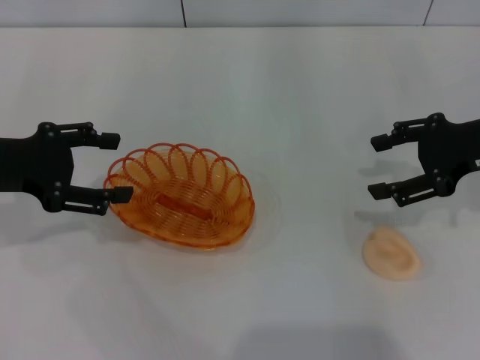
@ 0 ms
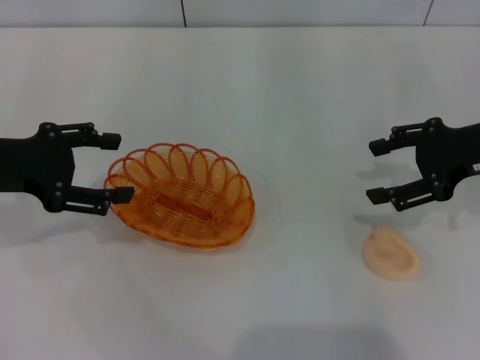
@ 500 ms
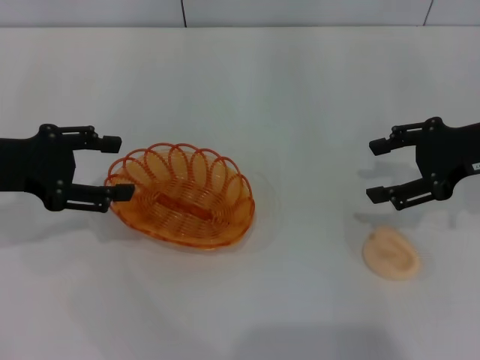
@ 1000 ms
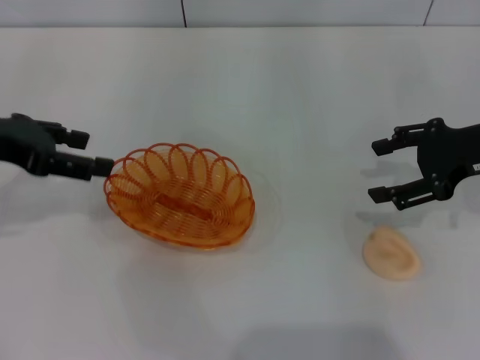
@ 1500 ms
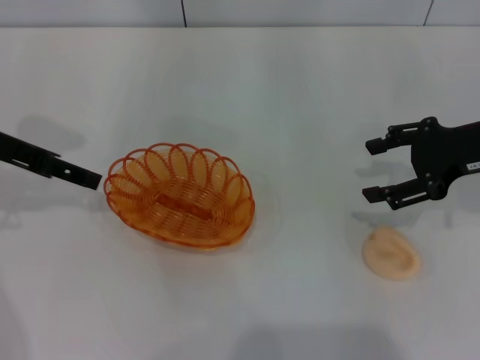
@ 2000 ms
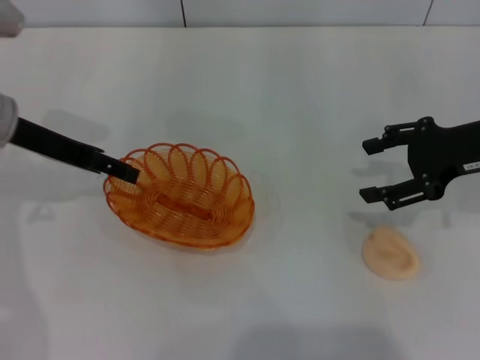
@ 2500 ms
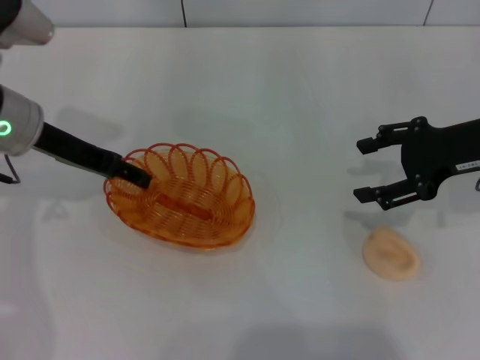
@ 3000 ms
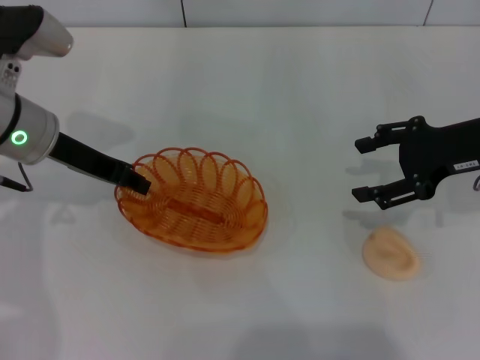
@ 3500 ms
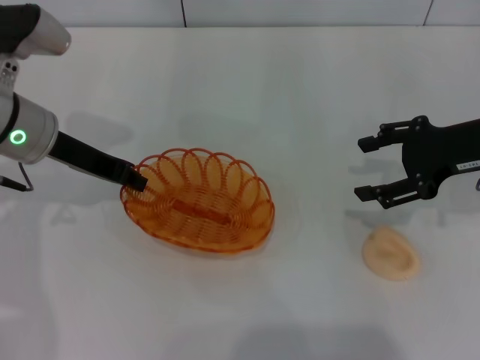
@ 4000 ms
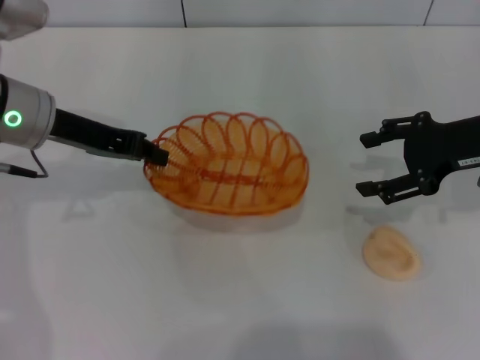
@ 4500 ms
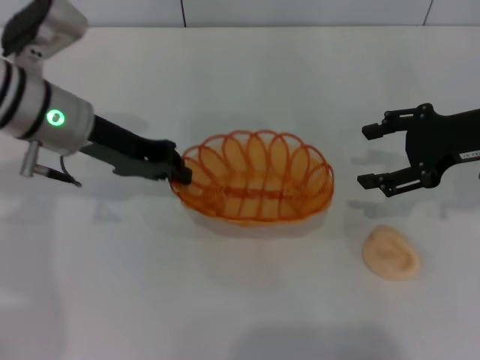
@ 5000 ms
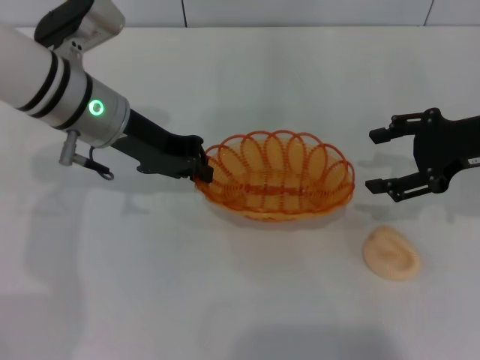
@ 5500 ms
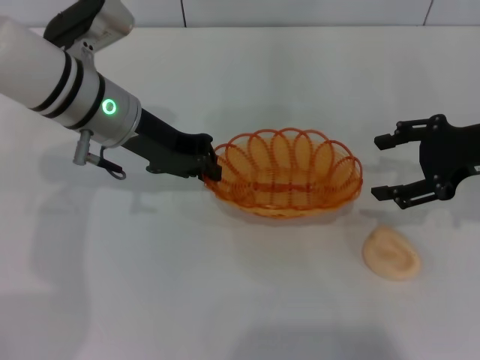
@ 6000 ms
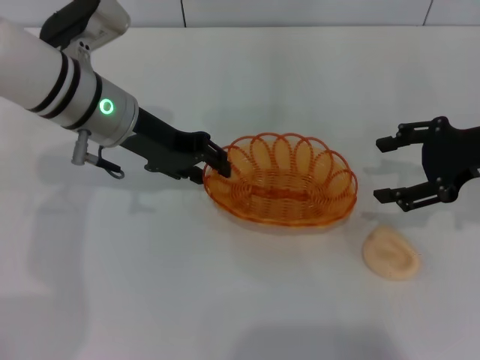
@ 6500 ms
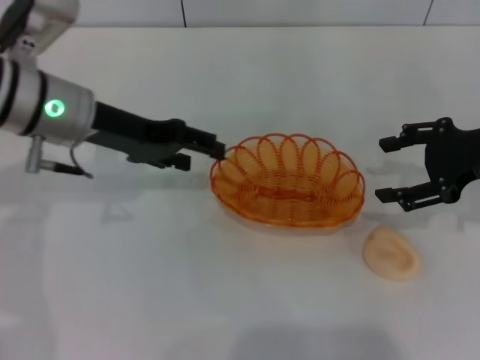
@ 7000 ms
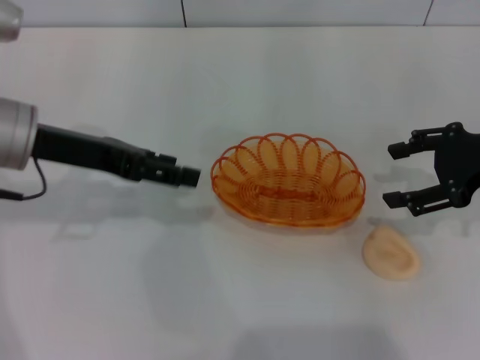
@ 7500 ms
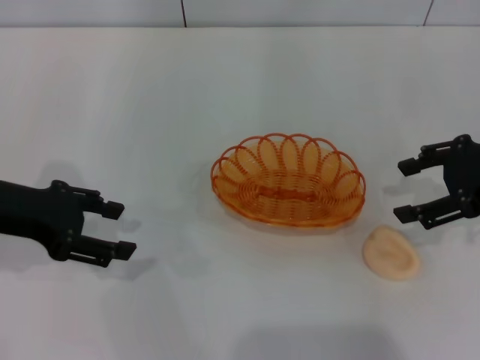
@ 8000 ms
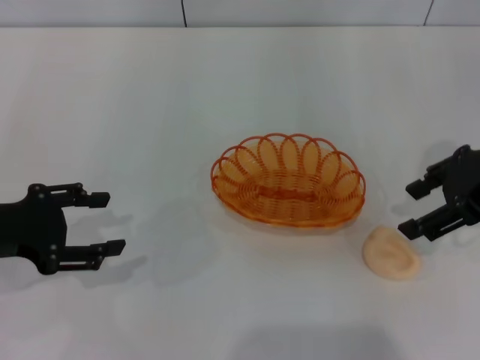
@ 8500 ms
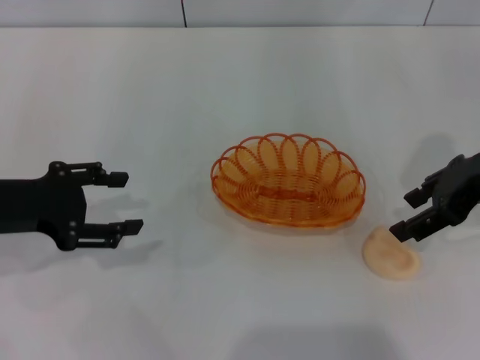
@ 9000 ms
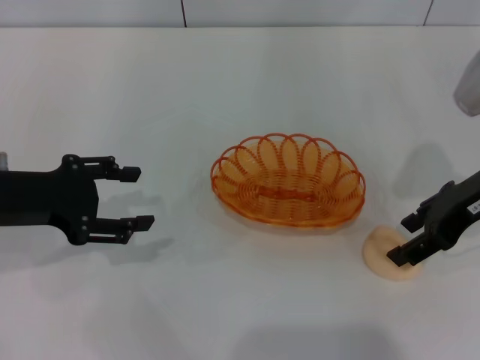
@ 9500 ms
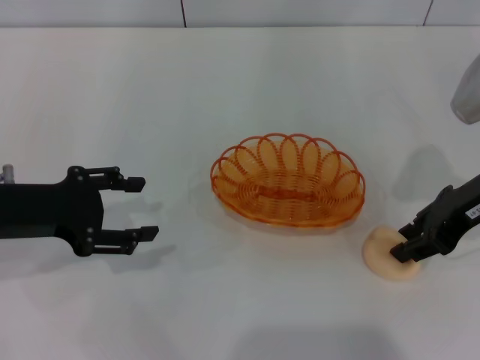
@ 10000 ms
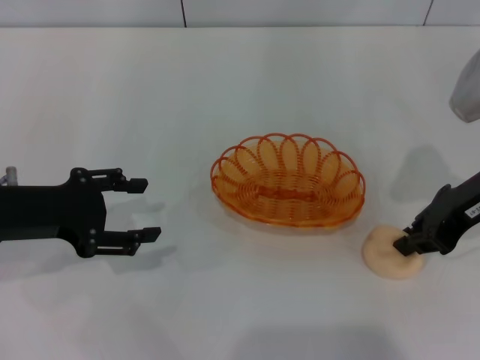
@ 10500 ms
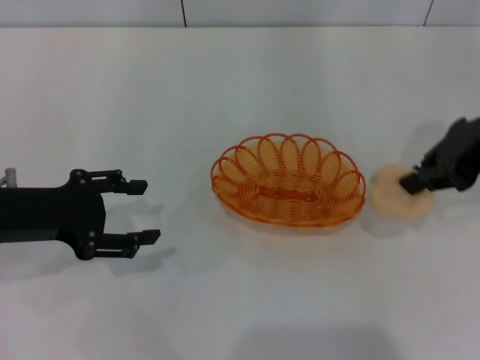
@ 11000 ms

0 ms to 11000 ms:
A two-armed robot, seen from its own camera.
Step, 0 ms to 4000 ms: Pick up the basket with the left gripper.
Step, 4500 ms to 7000 ms: Place the basket in the center of view with the left gripper.
Step, 7500 ms to 10500 ms: Pick up the egg yolk pastry with the right gripper.
0 ms to 2000 ms: The left gripper shifts by about 5 cm.
2000 ms to 3500 ms: The left gripper moves to the right, roughly 5 cm.
3500 ms to 5500 ms: The left gripper heads to the right, covering some 5 cm, and closes up.
5500 ms to 7500 ms: The left gripper is displaced to the left by about 5 cm, and opens up.
7500 ms to 9000 ms: The left gripper heads backward and to the left, covering about 10 cm. The right gripper moves roughly 5 cm.
9000 ms to 11000 ms: The right gripper closes.

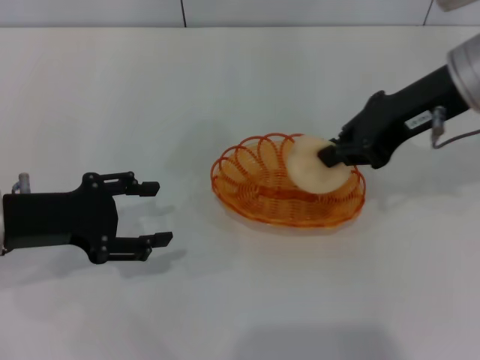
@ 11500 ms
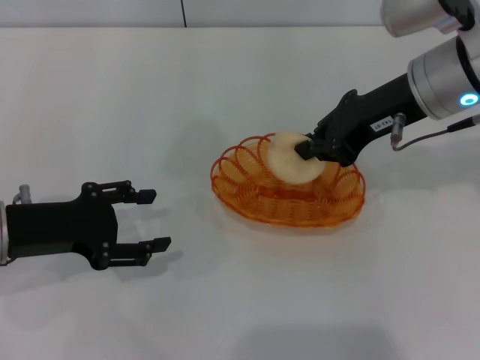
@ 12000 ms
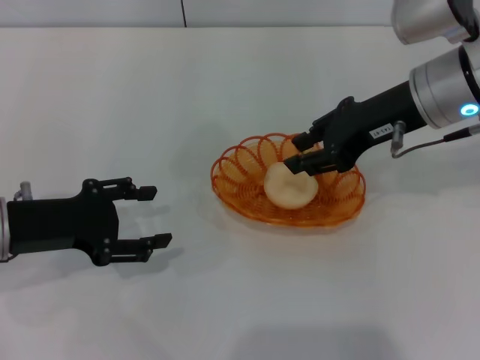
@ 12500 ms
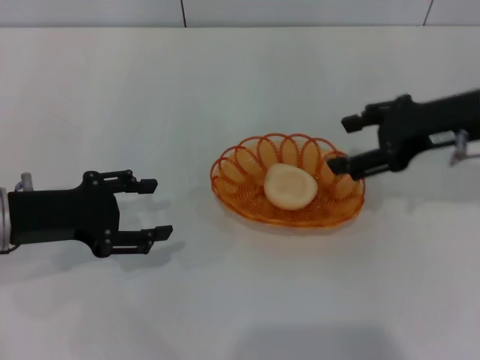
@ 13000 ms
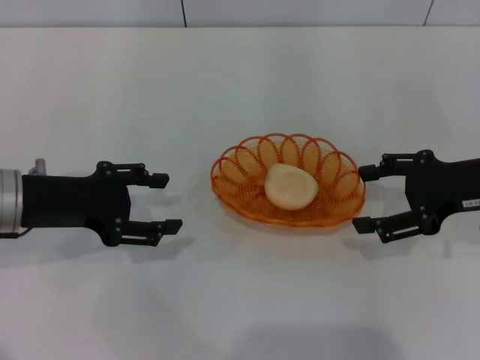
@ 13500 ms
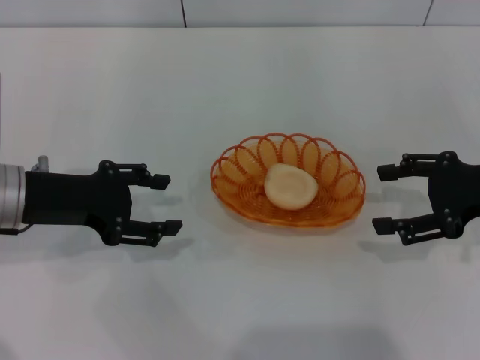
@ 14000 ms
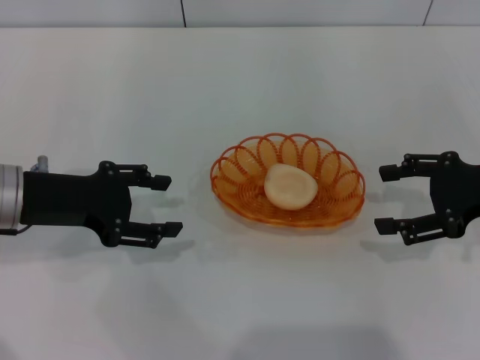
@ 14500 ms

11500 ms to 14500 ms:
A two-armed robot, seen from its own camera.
Step, 11500 ms to 12500 ms: Place the egg yolk pastry into the basket with the right gripper.
11500 ms to 13000 ms: The right gripper goes roughly 5 cm downward and to the right, and opens.
13000 ms to 14500 ms: The right gripper travels to the right by approximately 5 cm.

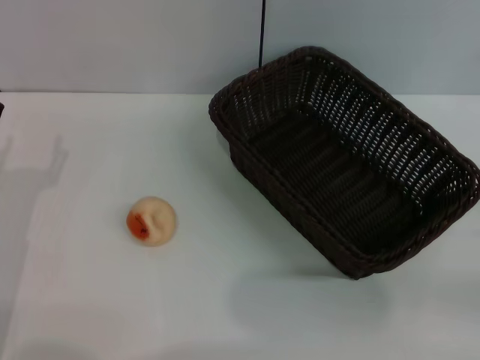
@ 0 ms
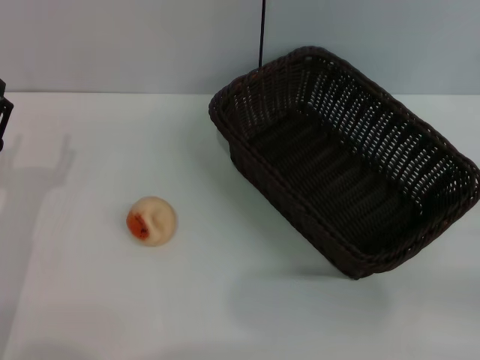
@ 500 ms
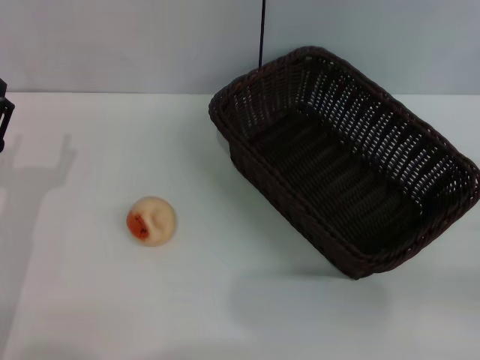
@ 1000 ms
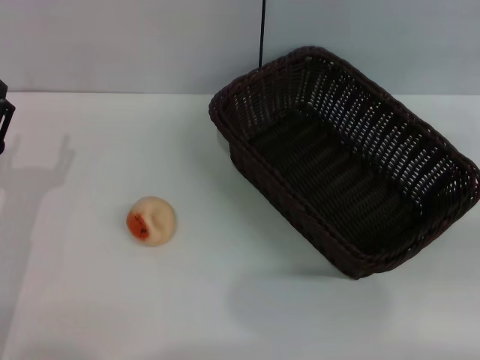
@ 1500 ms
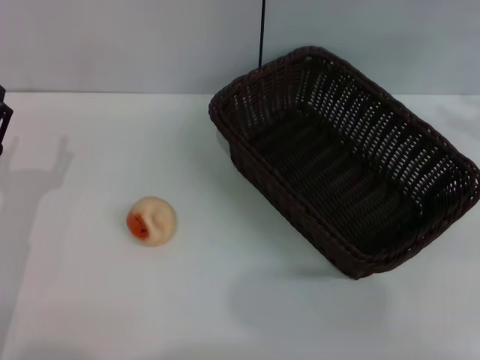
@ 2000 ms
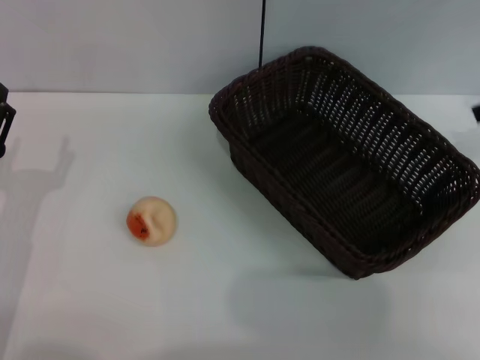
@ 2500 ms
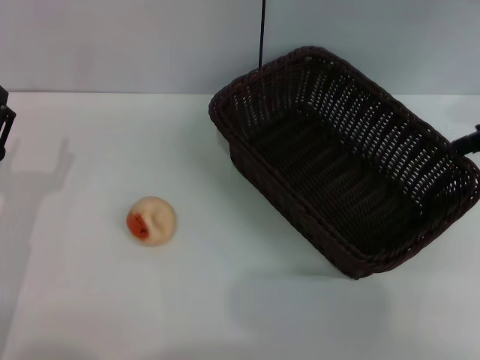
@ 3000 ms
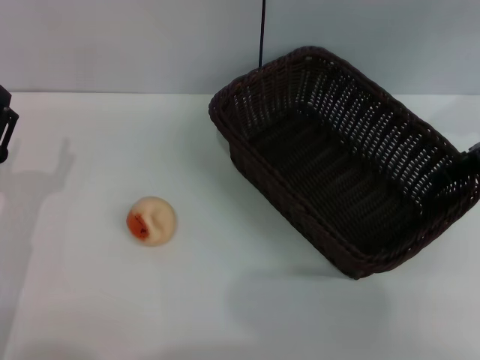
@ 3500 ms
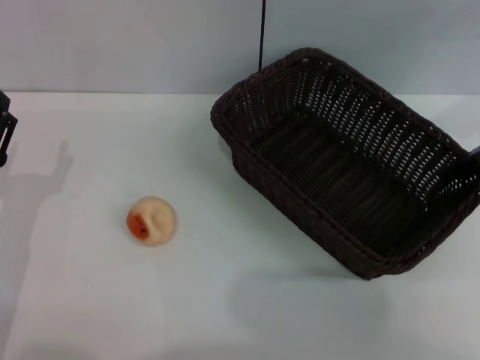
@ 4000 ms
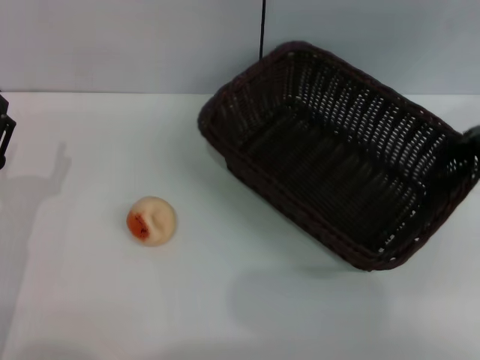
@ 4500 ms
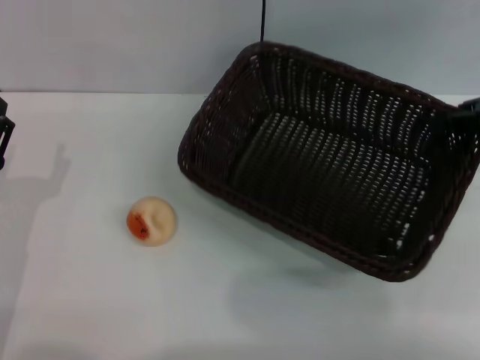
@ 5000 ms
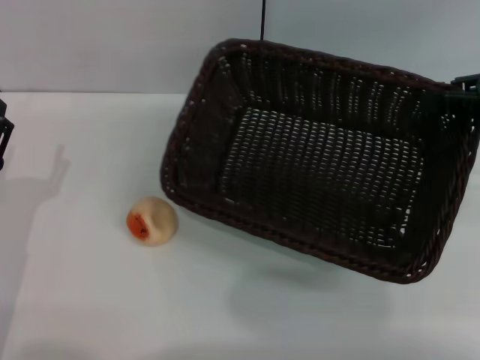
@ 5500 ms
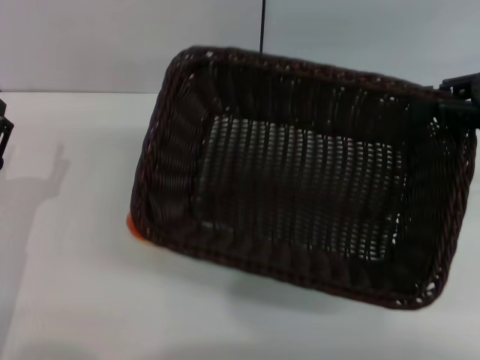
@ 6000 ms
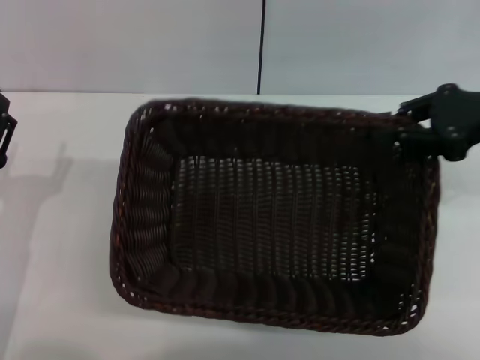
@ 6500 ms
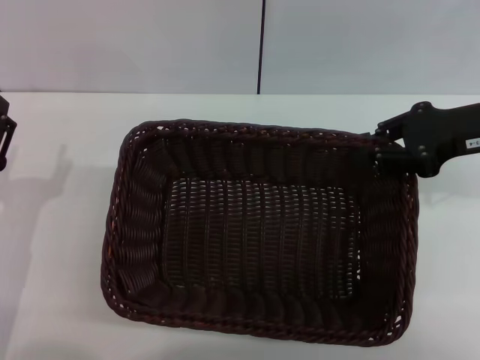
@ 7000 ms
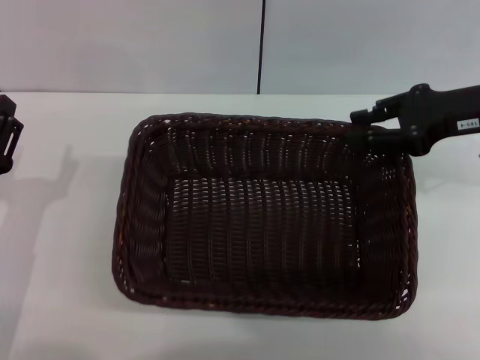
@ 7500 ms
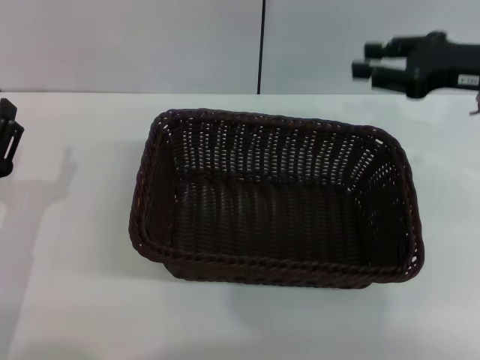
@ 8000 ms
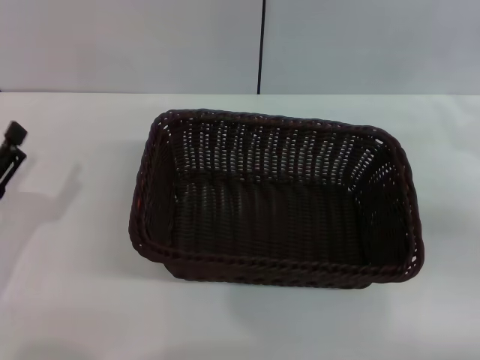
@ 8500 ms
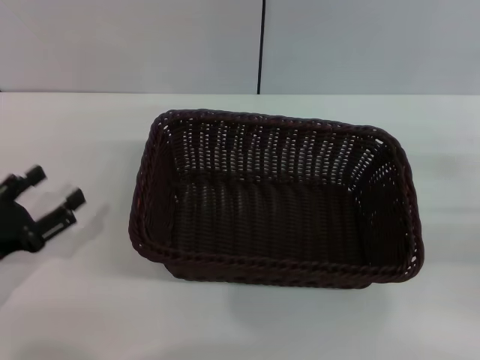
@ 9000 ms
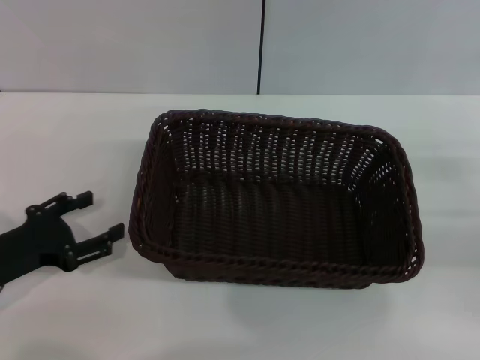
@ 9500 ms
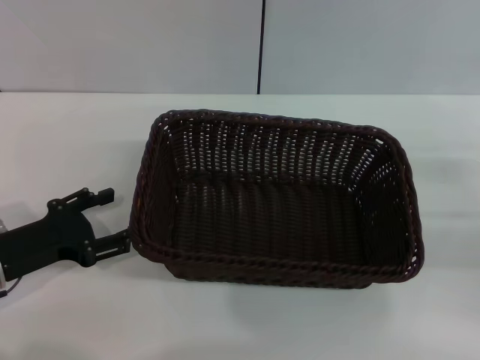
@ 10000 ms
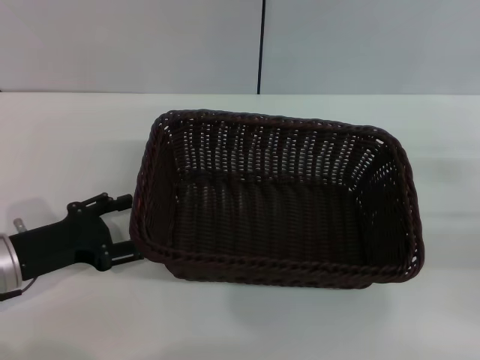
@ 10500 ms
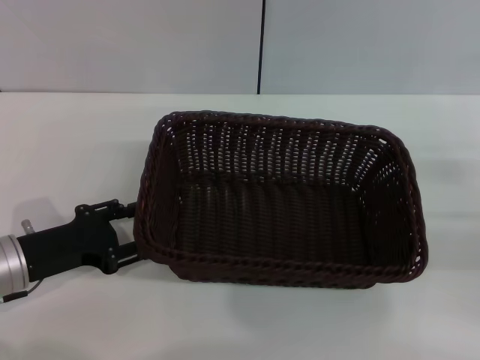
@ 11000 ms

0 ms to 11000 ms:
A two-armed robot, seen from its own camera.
Step, 0 ms to 7500 ms: Move the basket to the center of view with the right gripper.
3500 ms to 5500 ms: The right gripper closes up.
5500 ms to 7500 ms: The right gripper travels to the left by approximately 5 cm.
7500 ms to 9000 ms: The right gripper shifts approximately 20 cm backward, to the right and downward; the left gripper is displaced to the left by roughly 5 cm.
9000 ms to 11000 ms: The left gripper shifts by some 5 cm.
